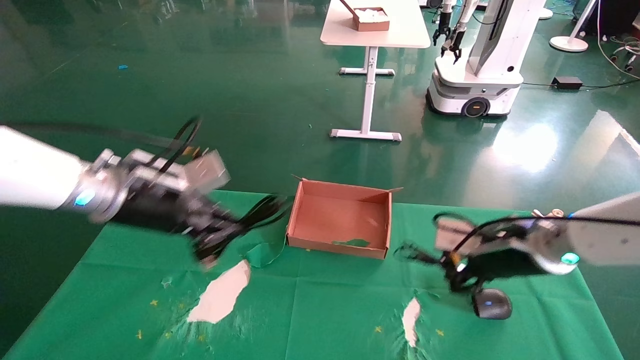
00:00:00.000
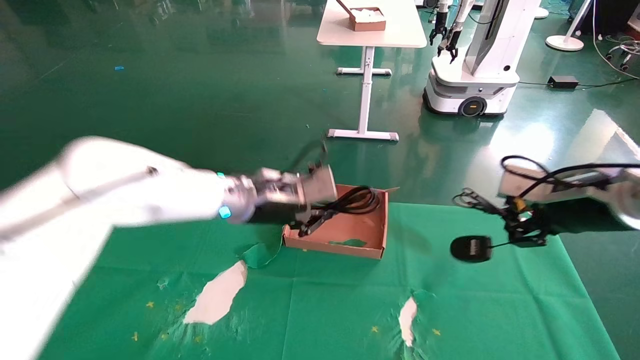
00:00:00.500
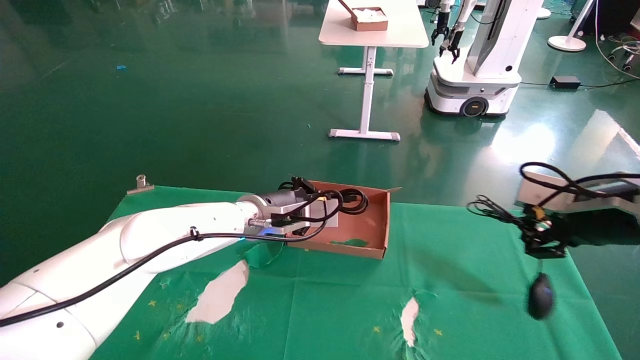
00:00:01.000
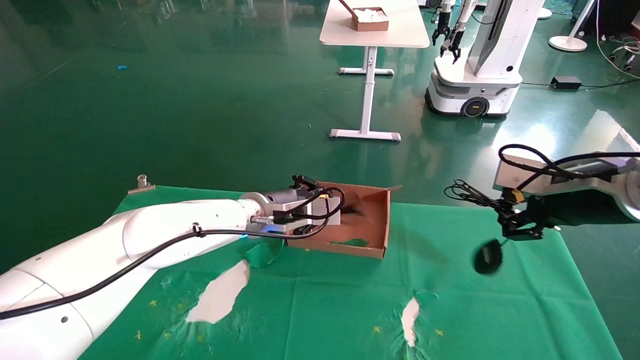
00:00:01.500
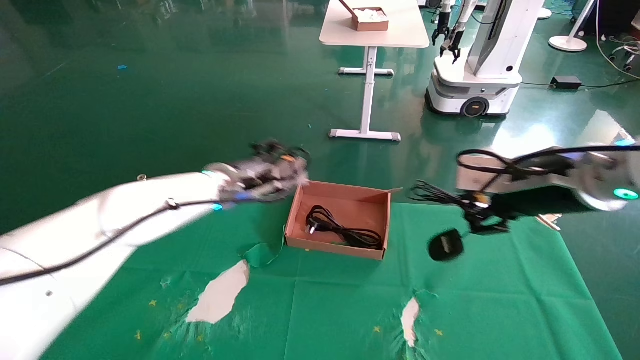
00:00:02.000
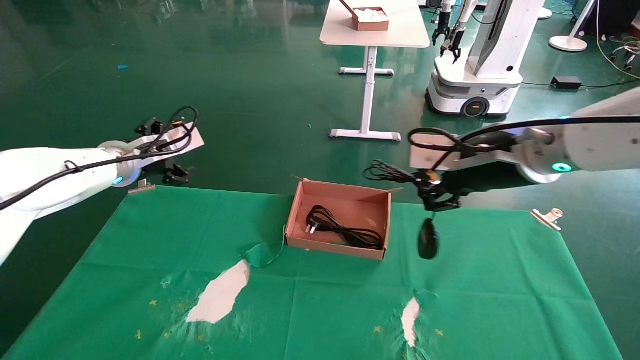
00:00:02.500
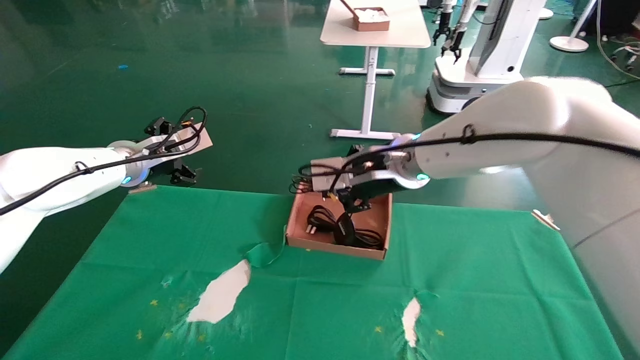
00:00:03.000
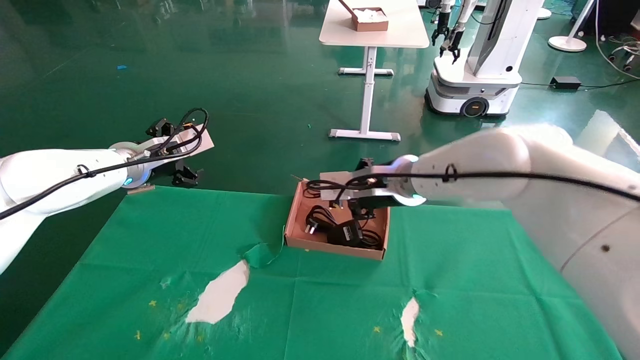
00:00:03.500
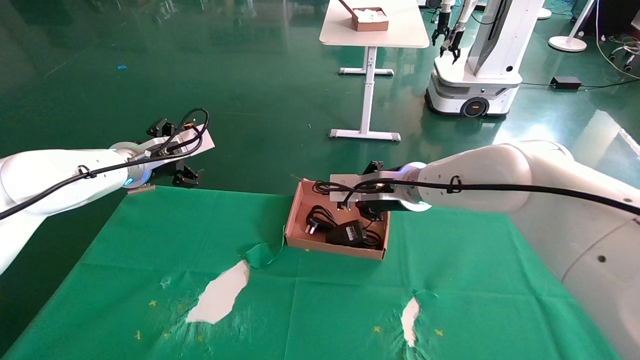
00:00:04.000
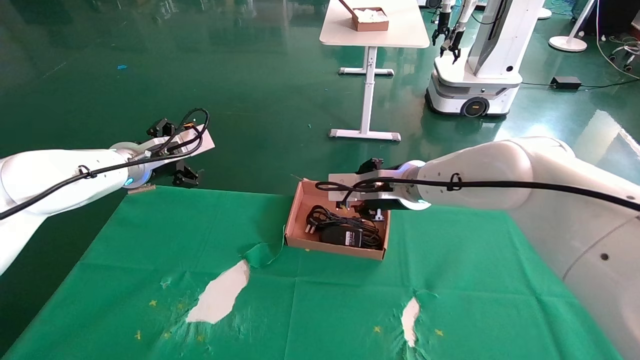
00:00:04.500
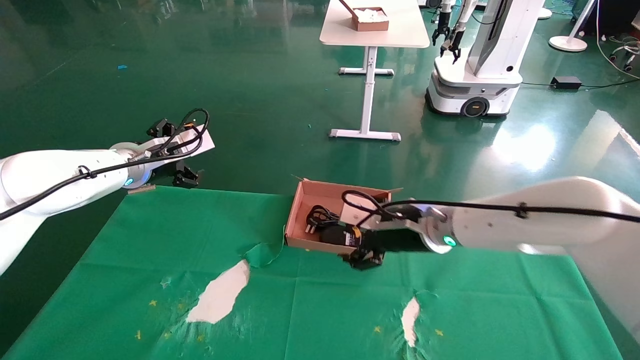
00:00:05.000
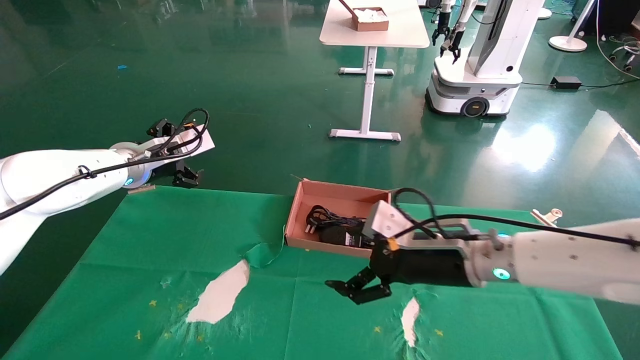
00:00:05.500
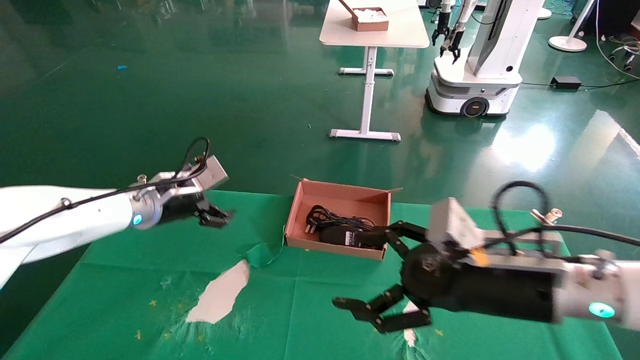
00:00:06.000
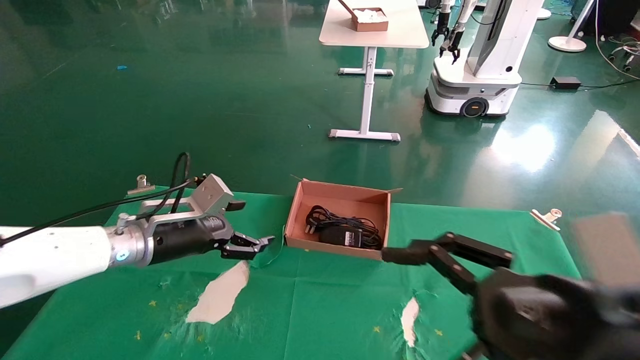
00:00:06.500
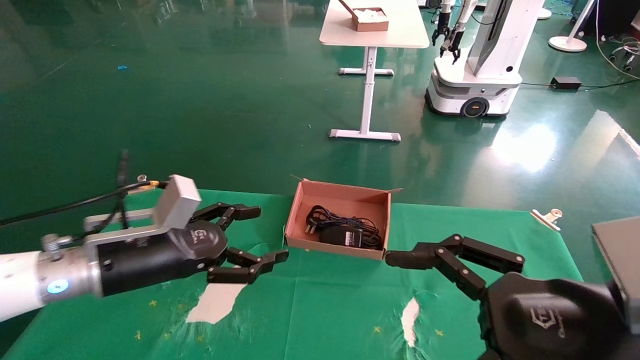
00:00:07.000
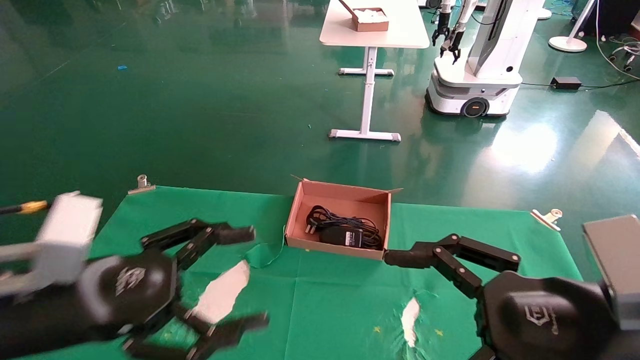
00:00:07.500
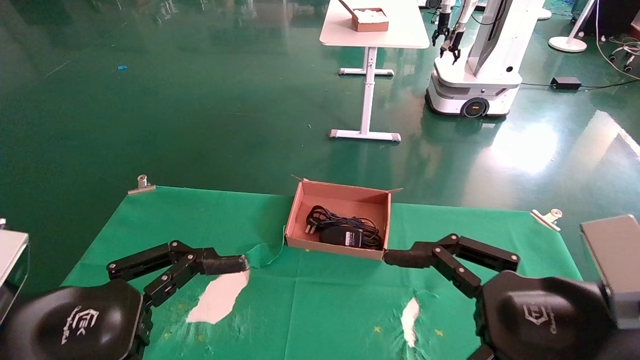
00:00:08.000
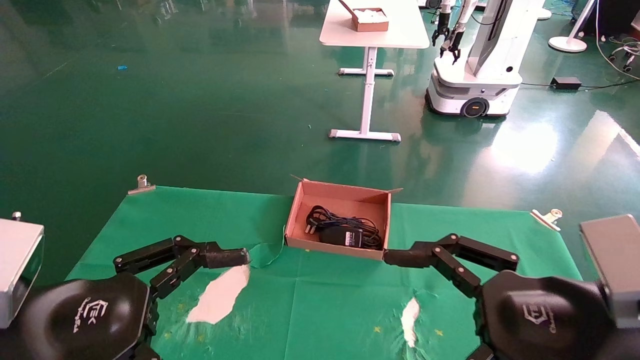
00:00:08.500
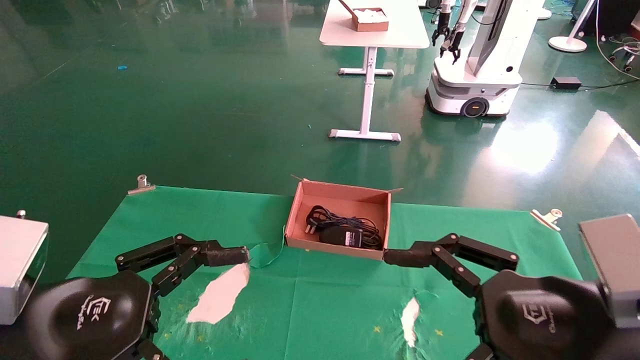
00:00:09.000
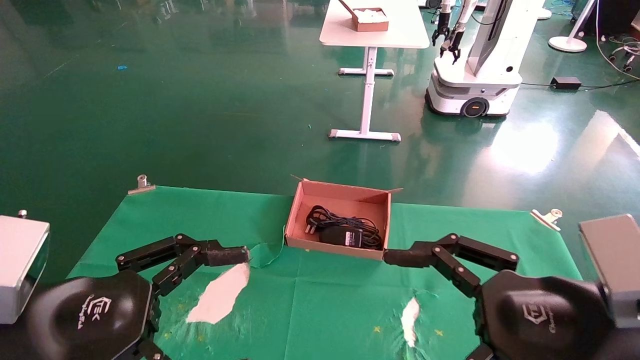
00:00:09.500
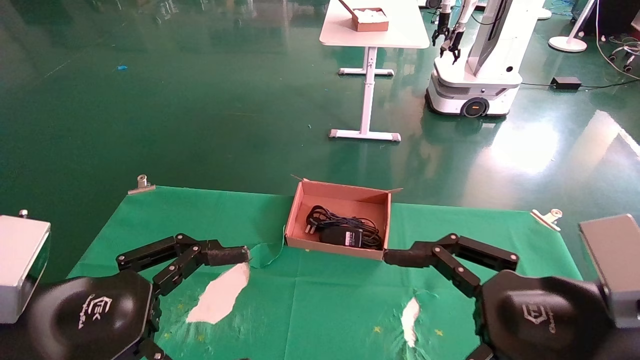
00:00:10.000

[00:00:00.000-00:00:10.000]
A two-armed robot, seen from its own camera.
Step, 00:00:00.000 to 00:00:04.500: Place the mouse and power cord into the box.
00:00:00.000 to 00:00:02.000: The left gripper travels forward and to the right by some 10 cm, and opens. The right gripper heads upward, covering about 10 cm.
00:00:02.000 to 00:00:04.000: The left gripper is displaced to the left by some 10 cm, and opens its fingers. Meanwhile the right gripper heads to the left and forward, covering roughly 20 cm.
00:00:04.000 to 00:00:06.000: The left gripper travels downward by roughly 5 cm. Meanwhile the right gripper heads backward and to the right, covering about 20 cm, and opens its fingers.
00:00:06.000 to 00:00:08.000: The right gripper travels backward by about 10 cm. The left gripper goes approximately 30 cm backward.
00:00:08.000 to 00:00:10.000: Both grippers stay about where they are.
